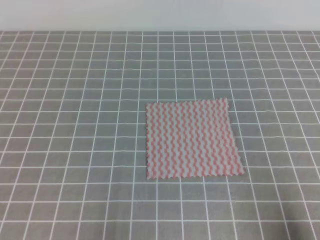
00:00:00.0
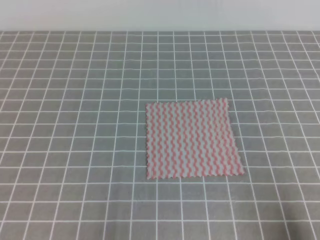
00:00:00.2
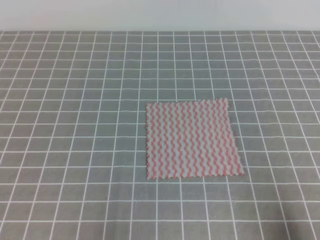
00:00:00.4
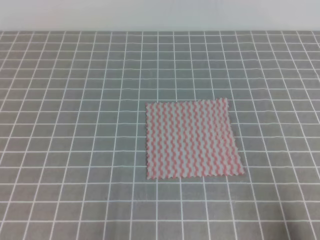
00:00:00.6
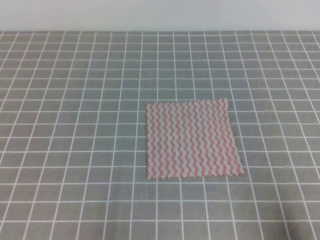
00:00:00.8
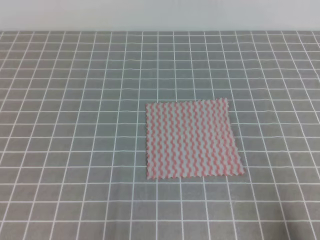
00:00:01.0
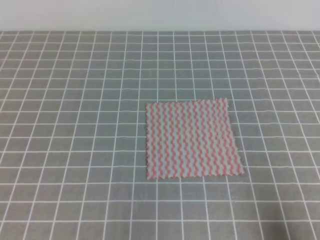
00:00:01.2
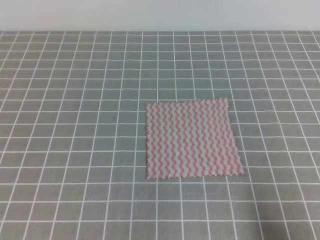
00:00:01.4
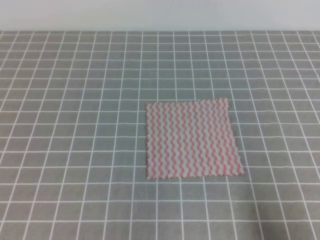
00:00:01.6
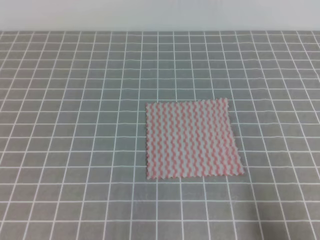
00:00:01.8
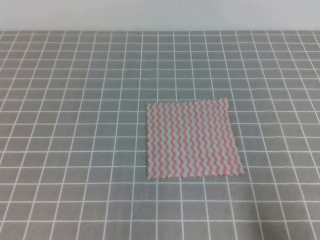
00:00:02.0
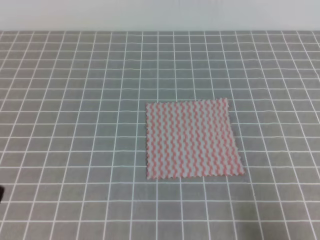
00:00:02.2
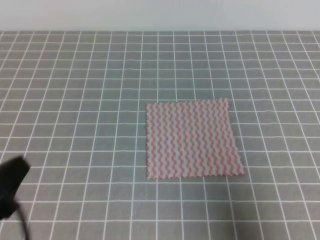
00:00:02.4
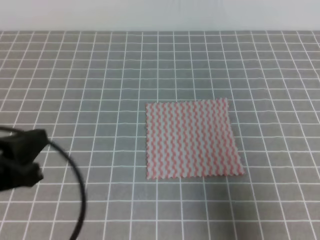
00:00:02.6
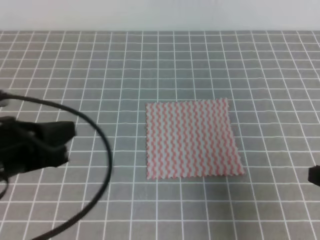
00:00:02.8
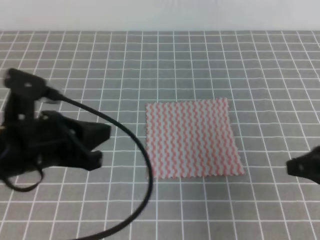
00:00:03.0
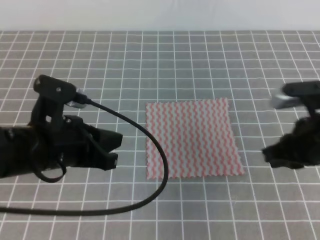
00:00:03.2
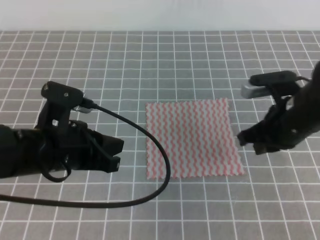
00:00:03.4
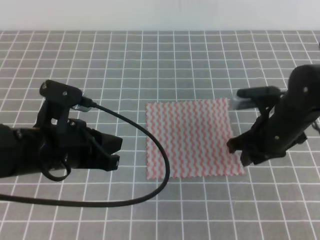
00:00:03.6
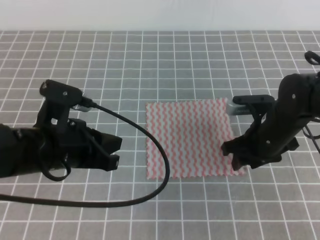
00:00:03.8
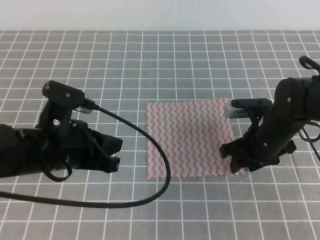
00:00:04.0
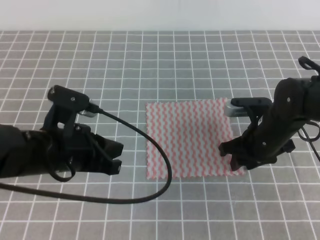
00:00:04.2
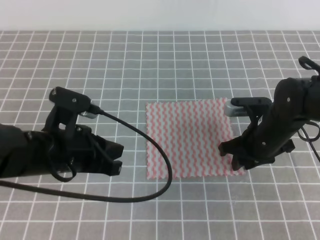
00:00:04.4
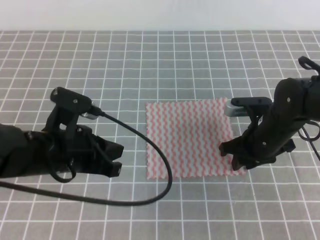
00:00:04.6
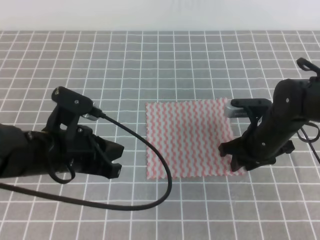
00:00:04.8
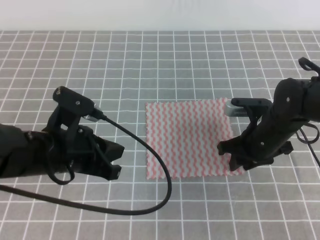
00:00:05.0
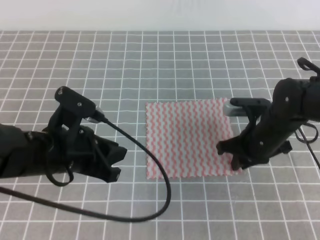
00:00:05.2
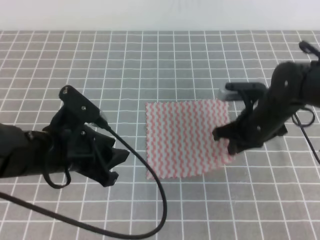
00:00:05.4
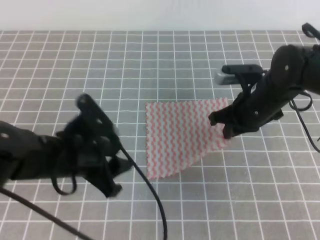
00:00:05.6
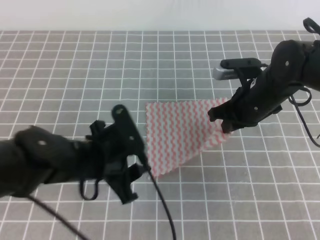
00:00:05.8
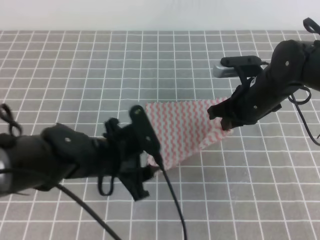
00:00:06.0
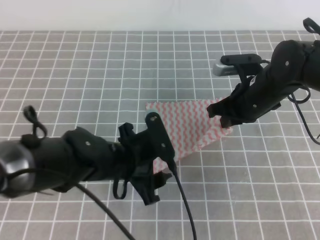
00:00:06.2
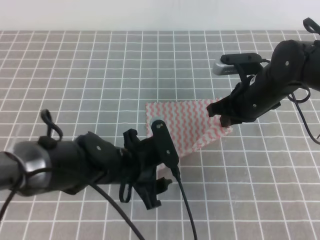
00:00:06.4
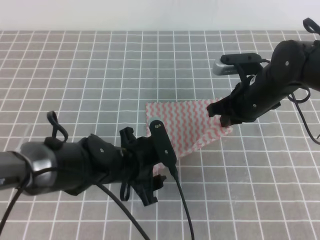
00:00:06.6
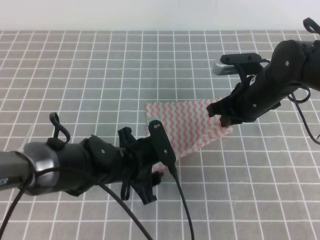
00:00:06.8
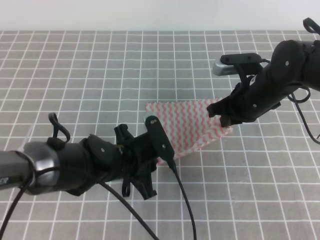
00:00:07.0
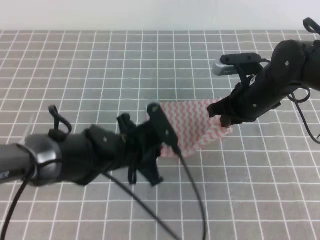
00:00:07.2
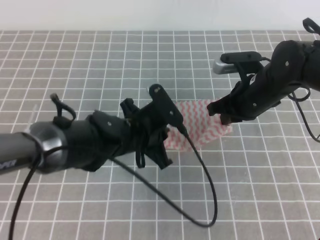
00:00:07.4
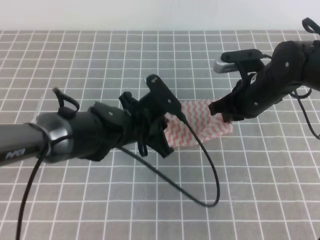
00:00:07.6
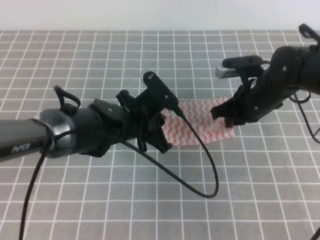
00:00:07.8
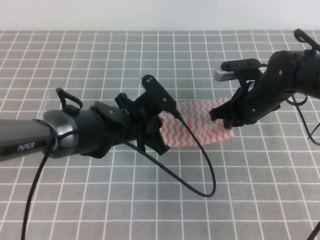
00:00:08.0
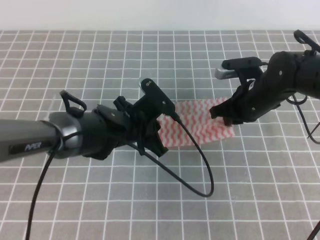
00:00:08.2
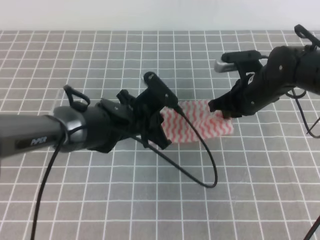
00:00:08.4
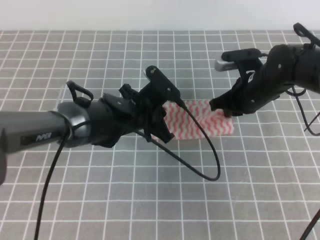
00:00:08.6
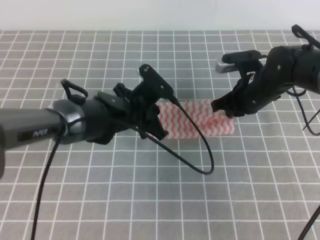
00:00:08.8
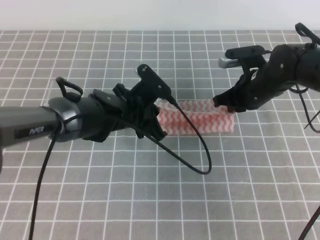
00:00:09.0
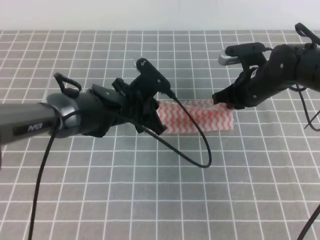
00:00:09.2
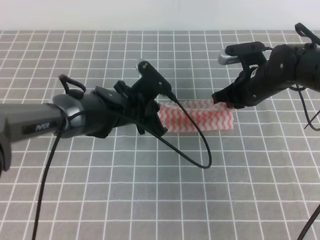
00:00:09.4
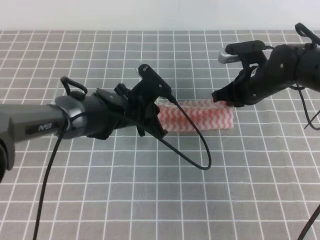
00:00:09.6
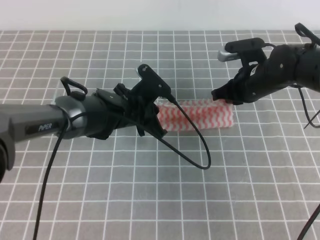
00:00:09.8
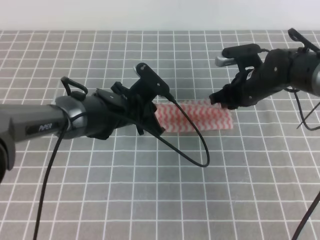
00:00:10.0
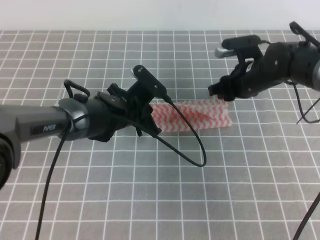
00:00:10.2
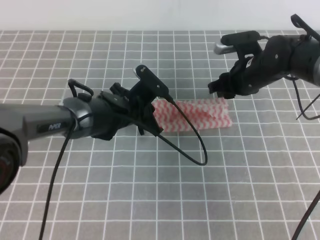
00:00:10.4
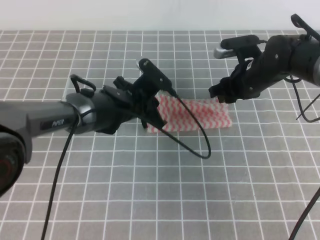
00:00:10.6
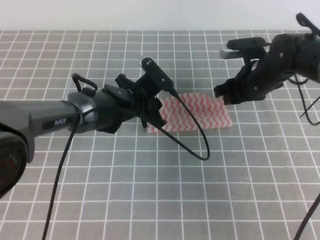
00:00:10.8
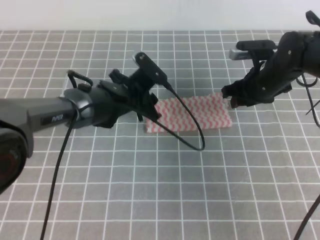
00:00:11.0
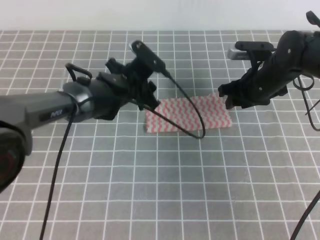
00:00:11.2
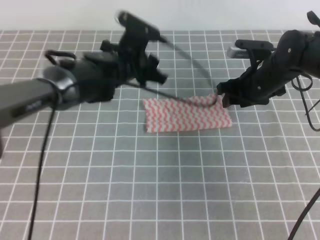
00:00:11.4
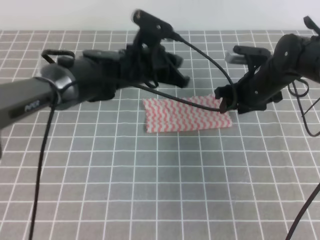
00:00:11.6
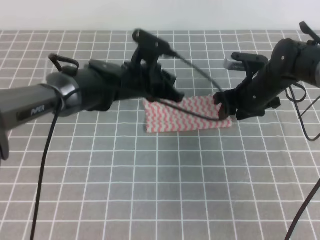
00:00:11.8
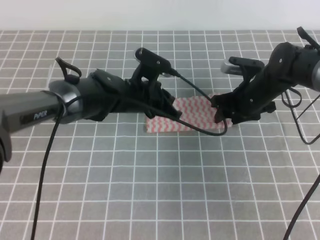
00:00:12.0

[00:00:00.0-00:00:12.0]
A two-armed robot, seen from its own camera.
00:00:01.6 to 00:00:03.0: The left gripper shifts about 20 cm forward, to the right and upward. Meanwhile the right gripper goes roughly 15 cm forward and upward.
00:00:03.0 to 00:00:04.4: The left gripper goes some 5 cm downward; the right gripper is displaced forward, downward and to the left by approximately 20 cm, and opens.
00:00:04.4 to 00:00:06.0: The left gripper moves to the right, roughly 5 cm, and opens up, while the right gripper travels upward by roughly 5 cm, and closes.
00:00:06.0 to 00:00:07.6: The left gripper moves forward, some 5 cm, and closes.
00:00:07.6 to 00:00:09.0: The left gripper is displaced forward by approximately 5 cm.
00:00:09.0 to 00:00:10.4: The right gripper opens up.
00:00:10.4 to 00:00:12.0: The left gripper opens, then closes once more.

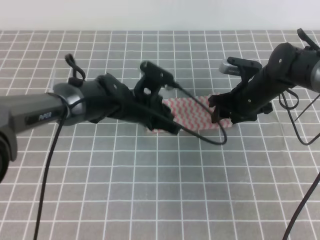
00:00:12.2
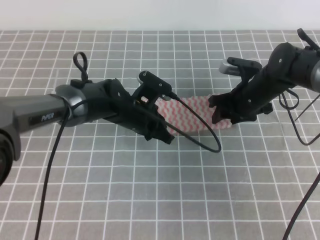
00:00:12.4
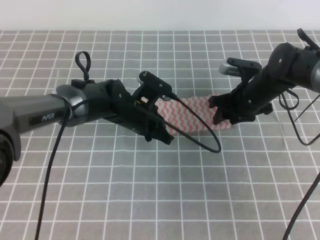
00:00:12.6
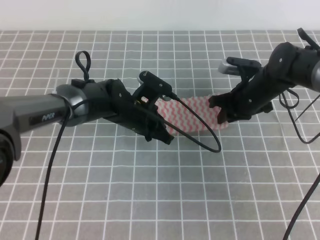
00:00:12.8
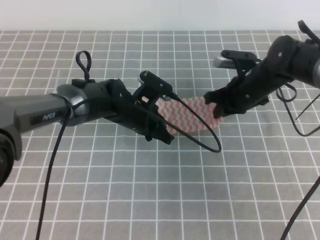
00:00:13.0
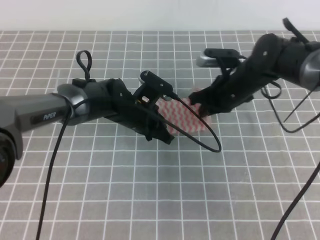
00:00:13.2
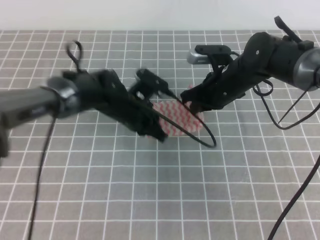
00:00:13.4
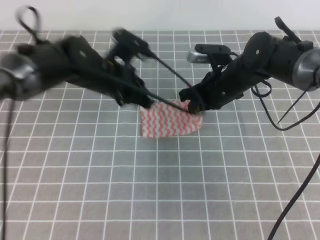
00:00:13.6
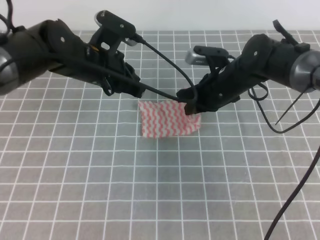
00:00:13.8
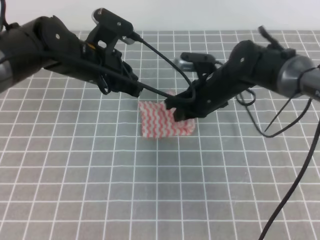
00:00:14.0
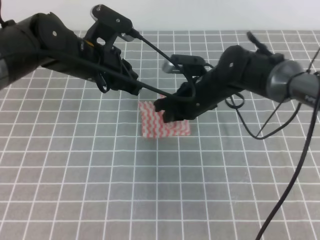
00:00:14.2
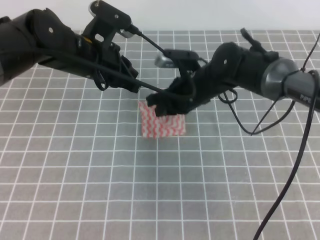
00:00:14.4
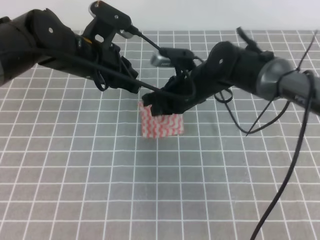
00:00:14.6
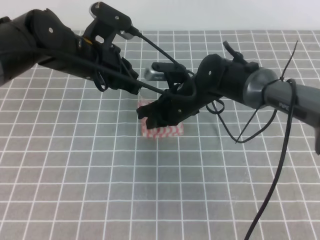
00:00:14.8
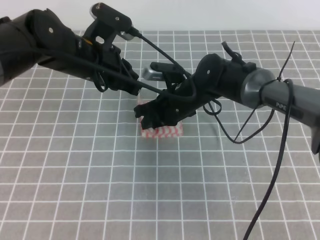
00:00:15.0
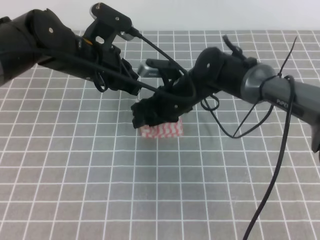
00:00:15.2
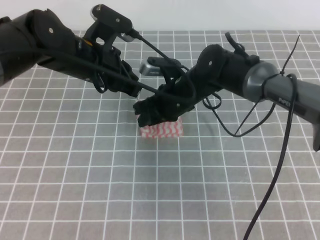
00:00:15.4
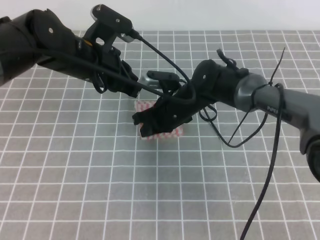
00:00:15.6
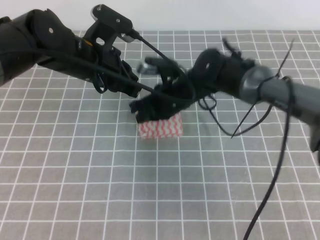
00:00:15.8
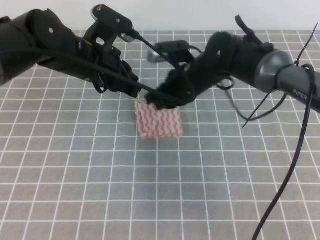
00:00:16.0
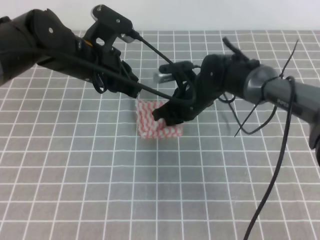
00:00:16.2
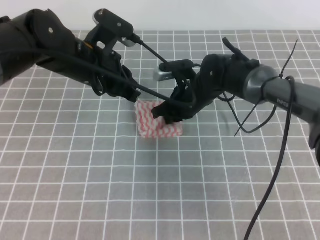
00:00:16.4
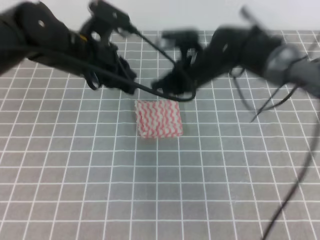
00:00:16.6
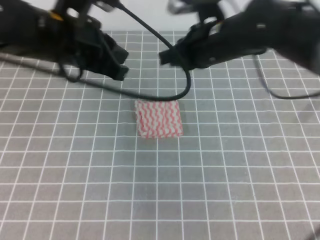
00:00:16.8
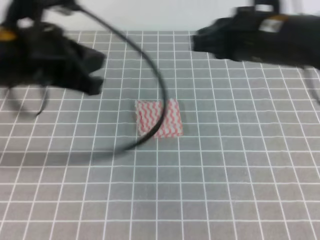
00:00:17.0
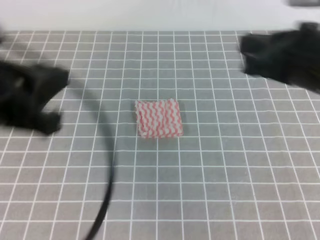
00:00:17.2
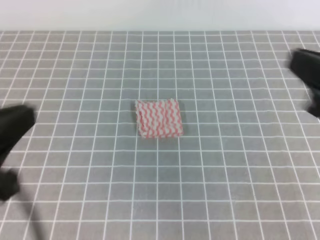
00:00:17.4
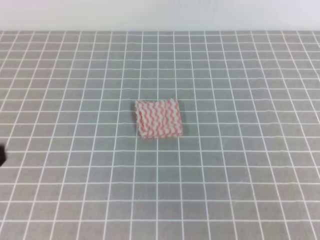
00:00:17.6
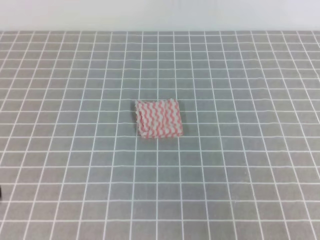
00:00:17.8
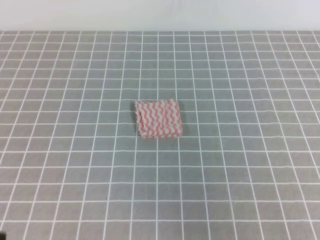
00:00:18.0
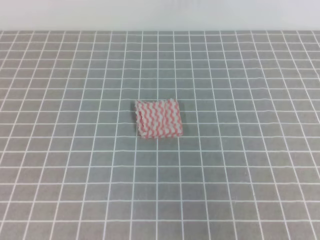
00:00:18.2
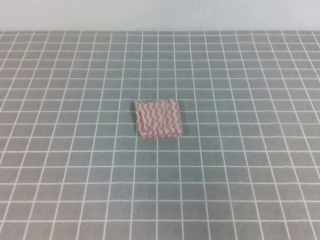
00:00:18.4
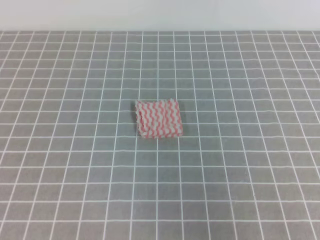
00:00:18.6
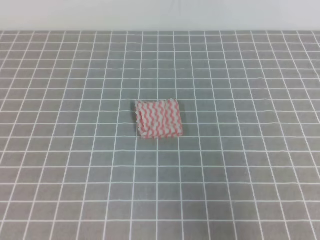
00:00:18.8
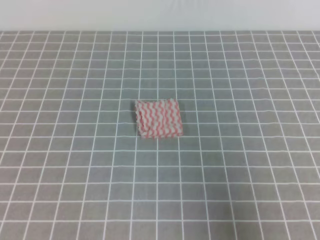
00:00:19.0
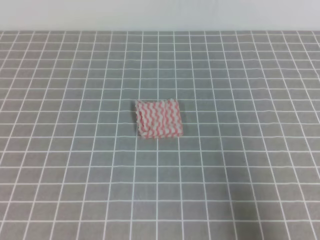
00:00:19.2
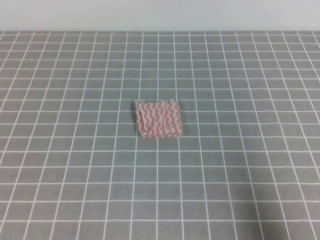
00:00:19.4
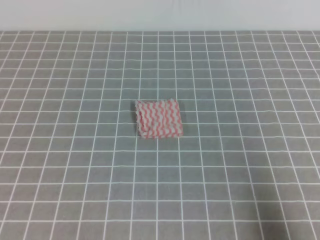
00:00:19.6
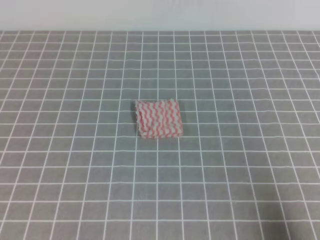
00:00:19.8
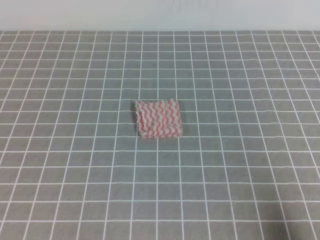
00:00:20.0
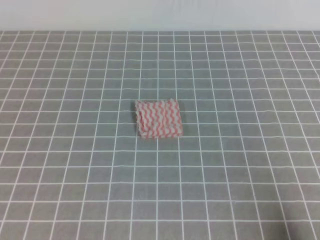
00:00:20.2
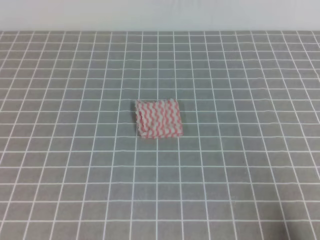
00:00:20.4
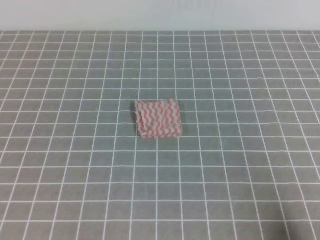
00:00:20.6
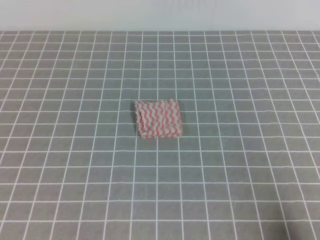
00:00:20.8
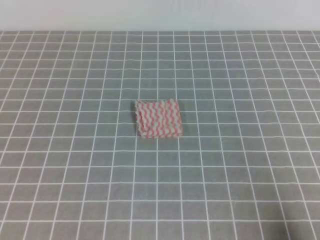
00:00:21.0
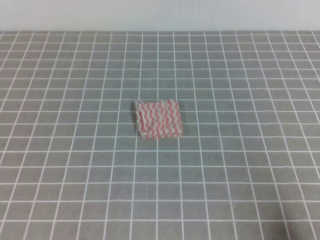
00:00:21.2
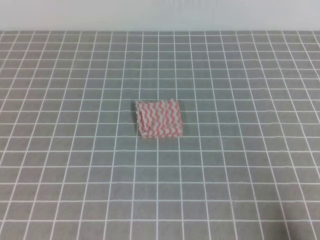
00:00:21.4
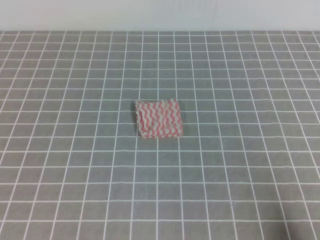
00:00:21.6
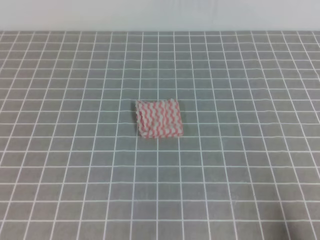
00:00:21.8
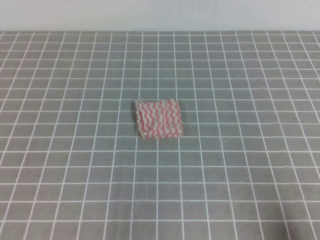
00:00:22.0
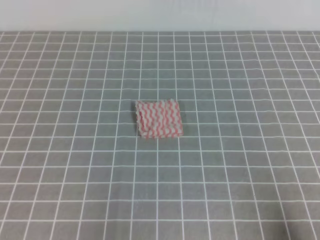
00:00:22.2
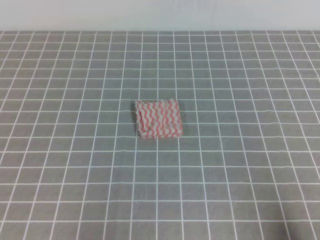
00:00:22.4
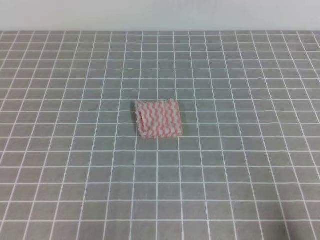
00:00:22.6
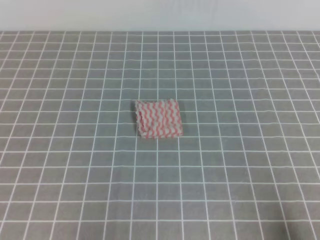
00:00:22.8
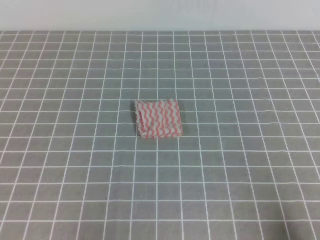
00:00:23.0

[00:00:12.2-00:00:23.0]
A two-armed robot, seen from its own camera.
Step, 00:00:12.2 to 00:00:23.0: Fold the towel.
00:00:12.2 to 00:00:13.8: The left gripper heads upward and to the left, covering roughly 10 cm. The right gripper is displaced to the left by approximately 5 cm, and closes.
00:00:13.8 to 00:00:15.2: The right gripper is displaced to the left by roughly 10 cm, and opens.
00:00:15.2 to 00:00:16.8: The left gripper shifts about 10 cm upward and backward, while the right gripper travels upward and to the right by some 15 cm, and closes.
00:00:16.8 to 00:00:18.4: The right gripper is displaced backward and to the right by some 35 cm; the left gripper heads backward and to the left, covering about 30 cm.
00:00:18.4 to 00:00:20.0: The right gripper goes some 15 cm downward.
